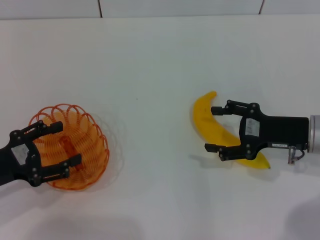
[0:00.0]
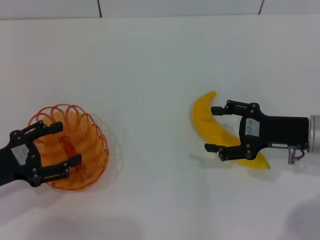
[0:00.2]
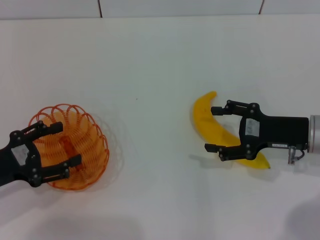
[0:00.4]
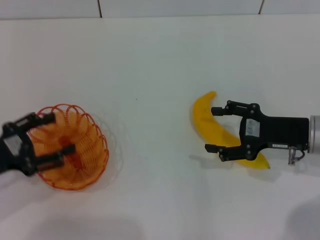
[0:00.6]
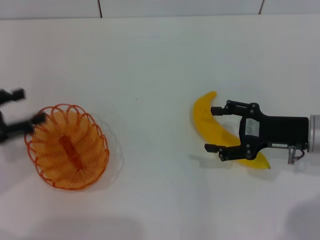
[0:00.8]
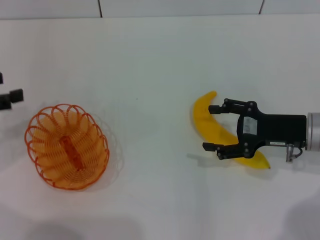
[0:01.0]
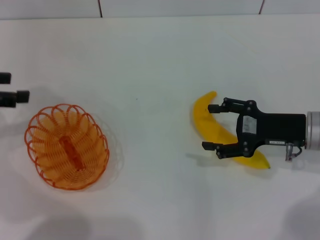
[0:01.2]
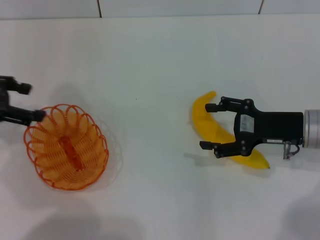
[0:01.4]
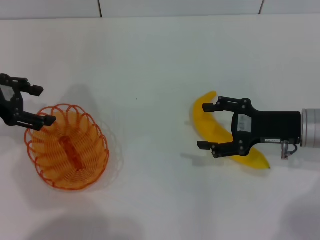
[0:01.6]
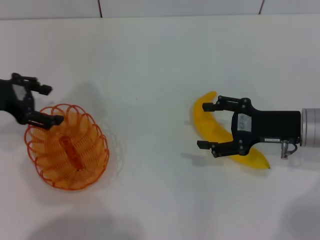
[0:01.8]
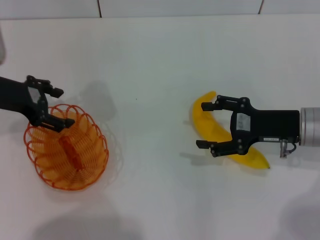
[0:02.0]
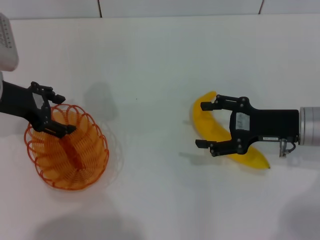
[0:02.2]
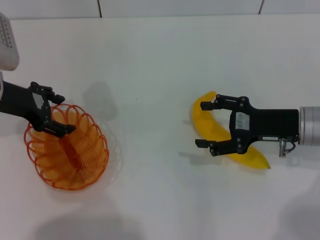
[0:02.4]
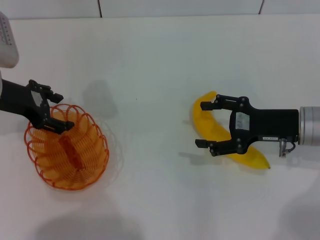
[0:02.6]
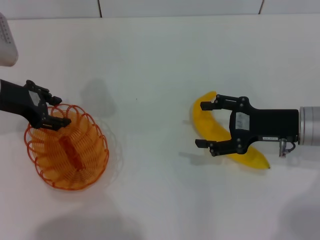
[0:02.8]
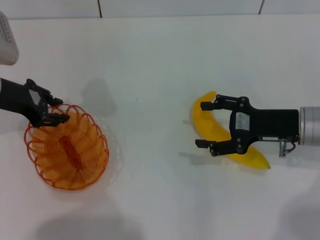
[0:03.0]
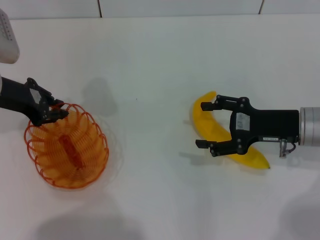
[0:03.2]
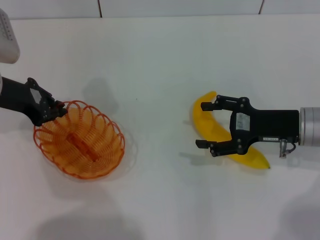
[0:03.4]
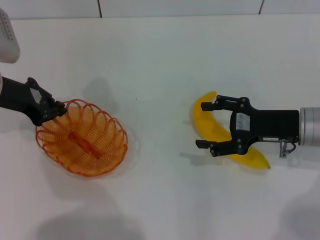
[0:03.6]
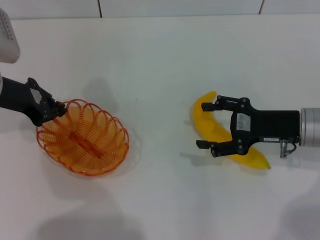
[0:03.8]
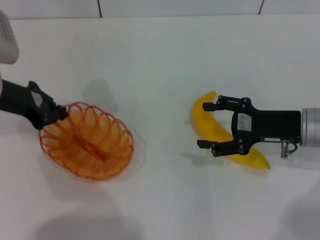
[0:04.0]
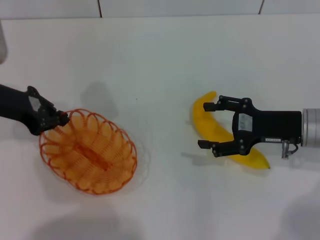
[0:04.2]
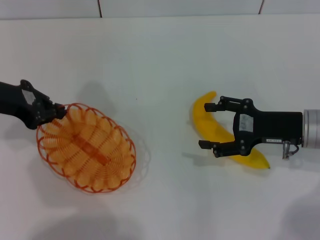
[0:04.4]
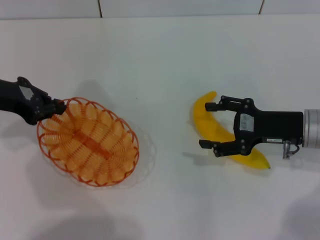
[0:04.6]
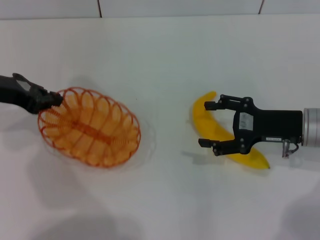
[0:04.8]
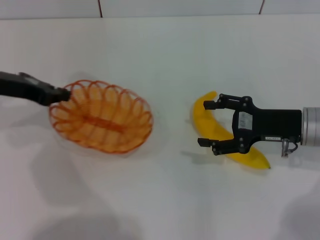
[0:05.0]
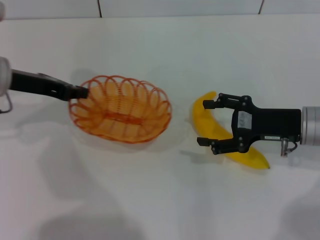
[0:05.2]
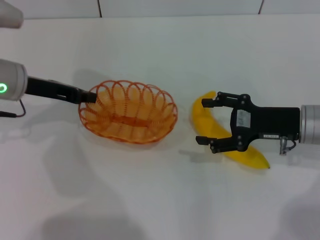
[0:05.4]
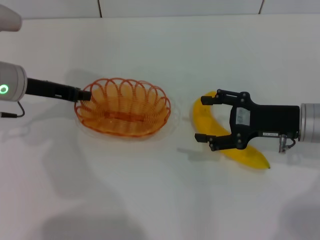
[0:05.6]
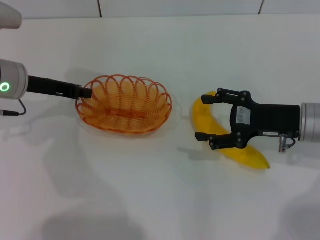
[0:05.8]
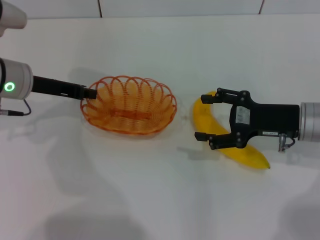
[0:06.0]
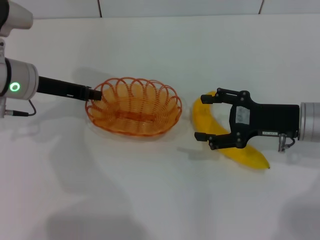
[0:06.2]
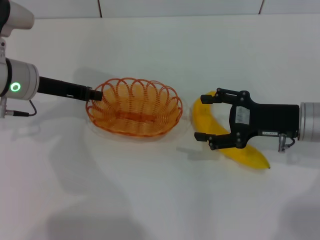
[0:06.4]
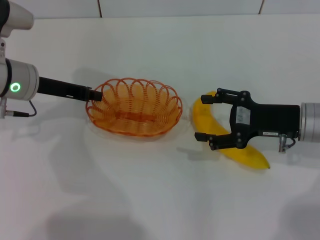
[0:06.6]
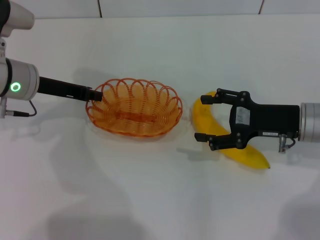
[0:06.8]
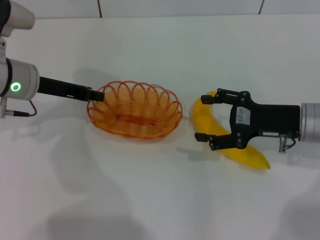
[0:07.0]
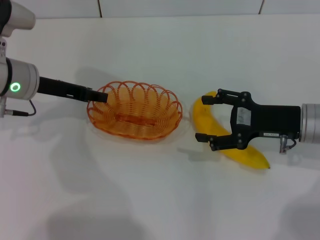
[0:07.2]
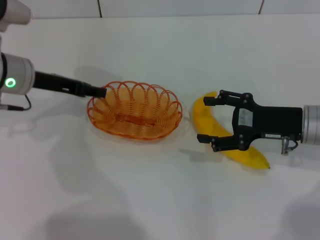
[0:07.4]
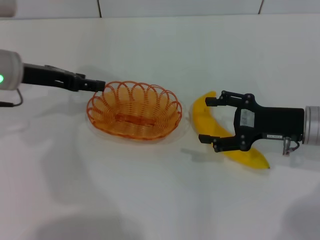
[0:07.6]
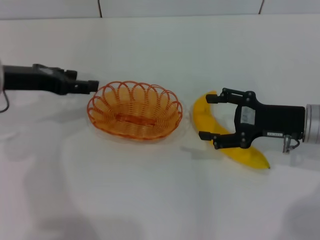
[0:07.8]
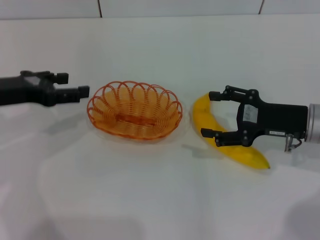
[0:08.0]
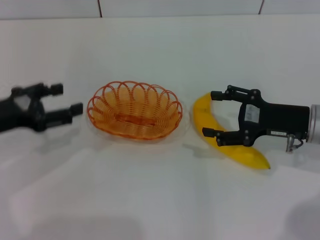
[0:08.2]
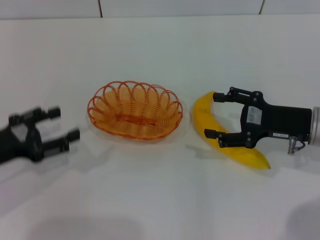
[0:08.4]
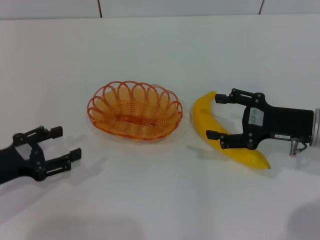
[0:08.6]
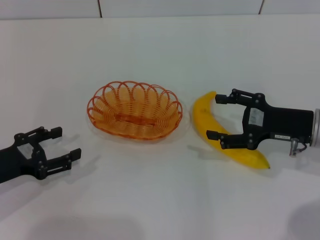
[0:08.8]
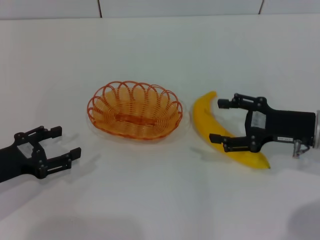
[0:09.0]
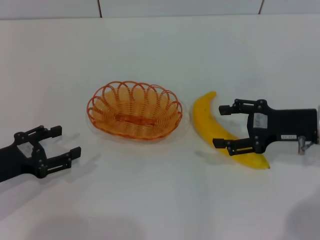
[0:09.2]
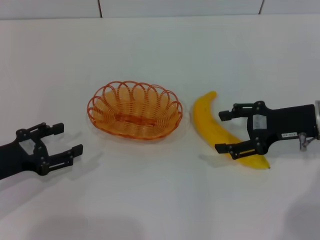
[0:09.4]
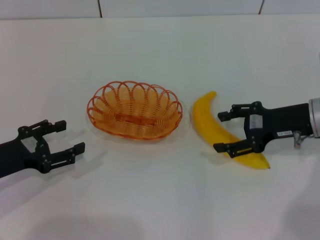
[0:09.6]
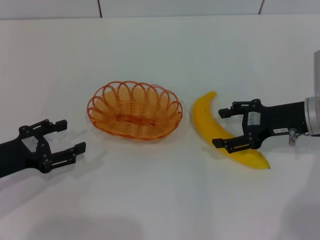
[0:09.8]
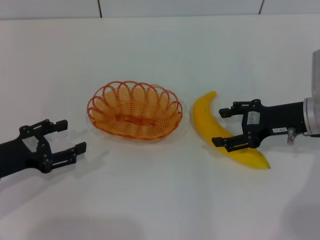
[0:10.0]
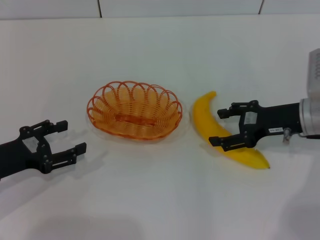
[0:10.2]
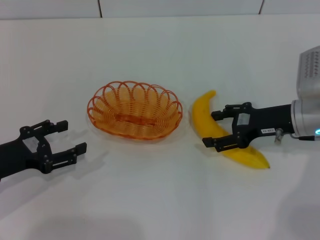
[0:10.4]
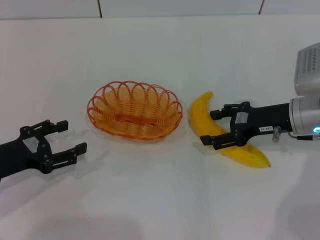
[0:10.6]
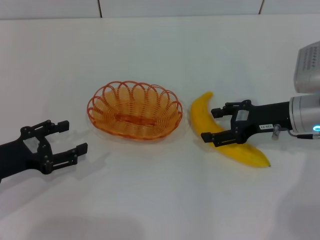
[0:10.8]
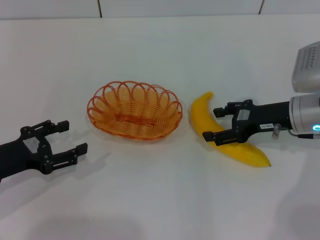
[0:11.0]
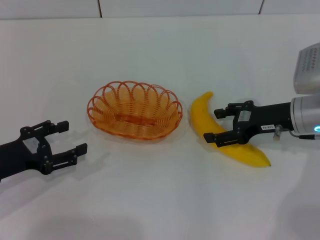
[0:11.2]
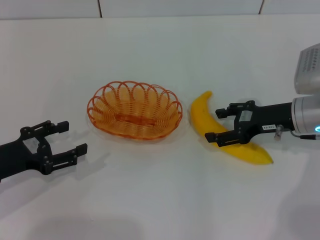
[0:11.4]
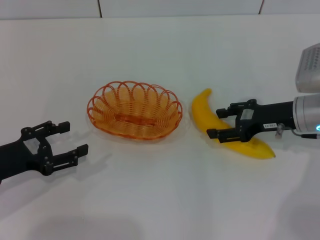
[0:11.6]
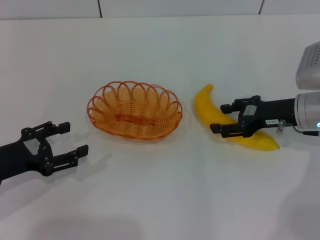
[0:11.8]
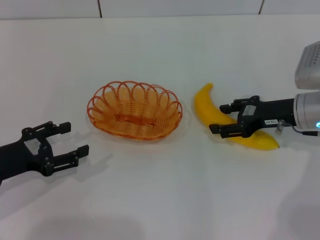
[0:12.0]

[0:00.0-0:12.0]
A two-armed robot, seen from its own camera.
Step, 0:00.0 to 0:05.0: Pick up the basket with the left gripper.
Step, 0:05.2 to 0:08.6: Place the basket in the center of view with the left gripper.
0:00.0 to 0:01.6: The left gripper travels forward and upward by roughly 15 cm.
0:01.6 to 0:03.0: The left gripper changes place by some 5 cm.
0:03.0 to 0:04.4: The left gripper closes up.
0:04.4 to 0:06.0: The left gripper changes place by some 5 cm.
0:06.0 to 0:07.6: The left gripper opens.
0:07.6 to 0:09.0: The left gripper travels backward, downward and to the left by some 20 cm.
0:10.4 to 0:12.0: The grippers make only small movements.

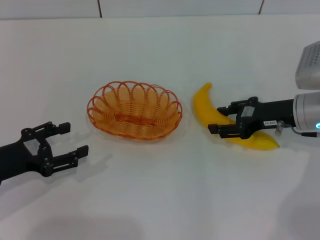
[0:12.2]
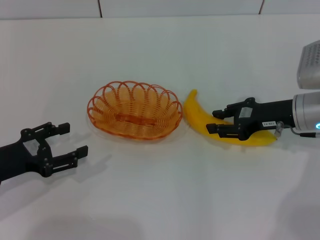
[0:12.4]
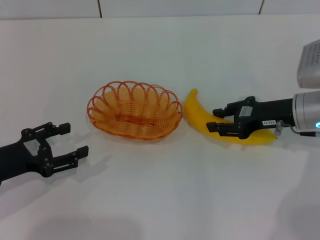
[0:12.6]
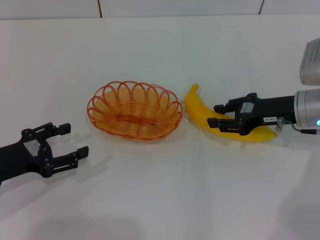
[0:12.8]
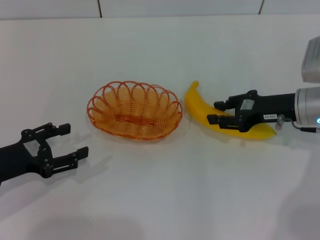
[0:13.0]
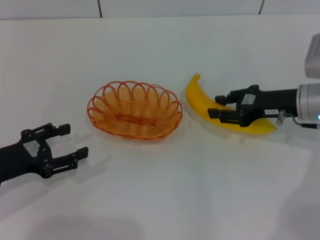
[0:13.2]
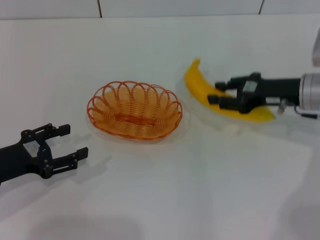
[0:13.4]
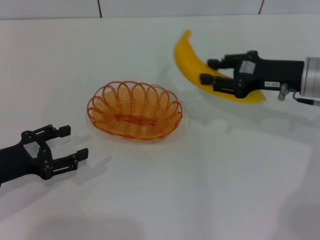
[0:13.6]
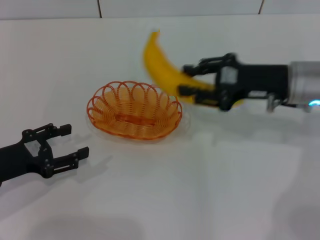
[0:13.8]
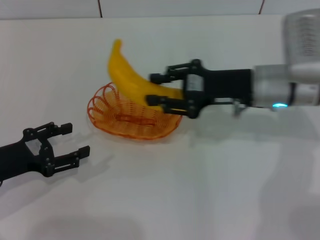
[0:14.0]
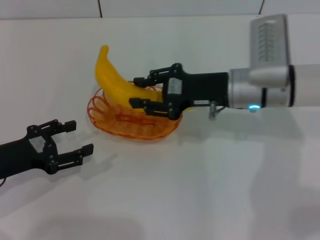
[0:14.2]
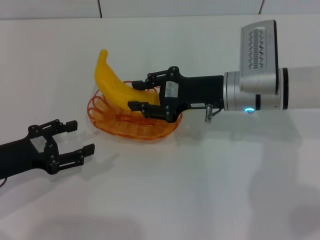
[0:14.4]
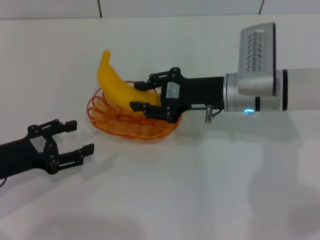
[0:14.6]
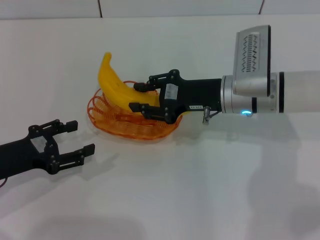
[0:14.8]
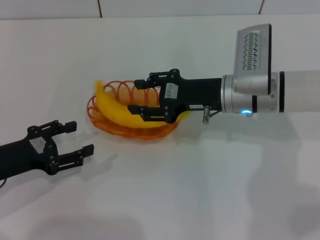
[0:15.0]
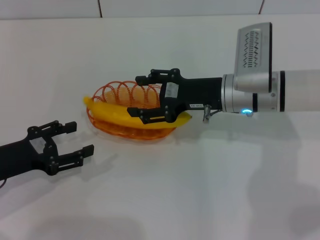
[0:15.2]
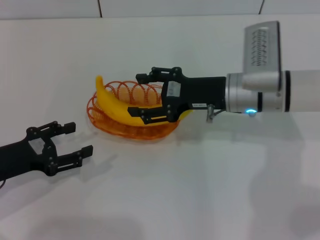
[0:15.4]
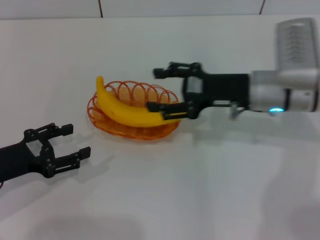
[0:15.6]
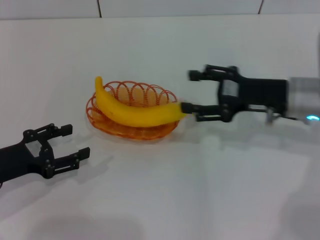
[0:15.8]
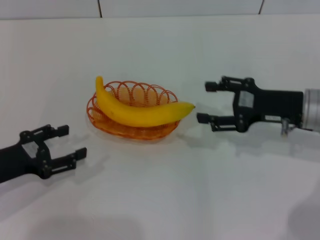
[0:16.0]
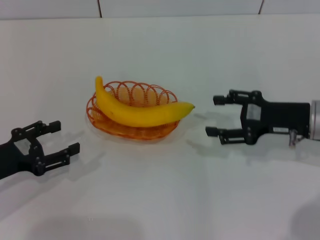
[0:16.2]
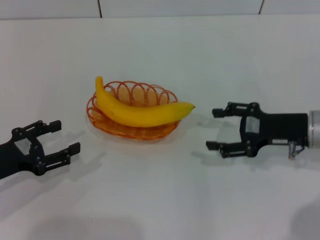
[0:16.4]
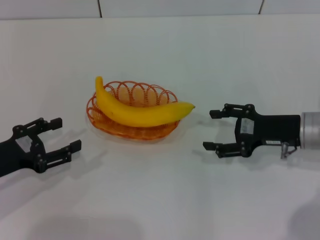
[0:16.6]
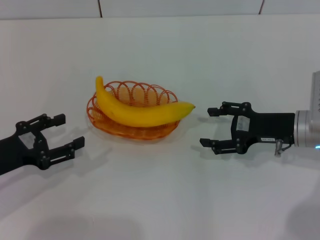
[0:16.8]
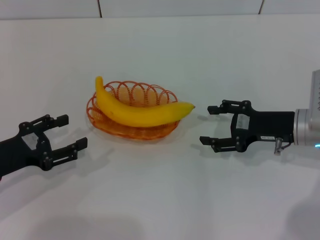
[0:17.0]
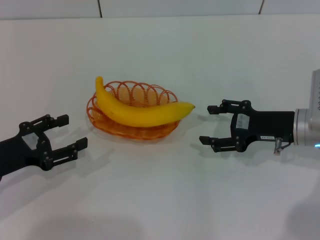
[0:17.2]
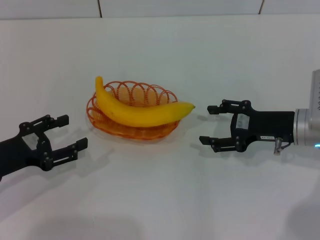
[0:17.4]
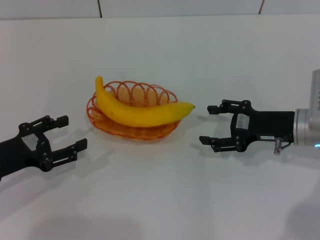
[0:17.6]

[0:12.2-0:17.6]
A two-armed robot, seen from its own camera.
Step, 0:13.8 to 0:15.8: Place the banana into the basket with the right gripper.
0:12.2 to 0:13.6: The right gripper closes up.
0:13.6 to 0:15.0: The right gripper moves to the left, about 10 cm.
0:15.0 to 0:16.2: The right gripper goes about 15 cm to the right and backward, and opens its fingers.
0:16.2 to 0:17.6: The grippers stay close to where they were, moving slightly.
